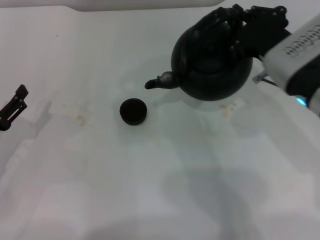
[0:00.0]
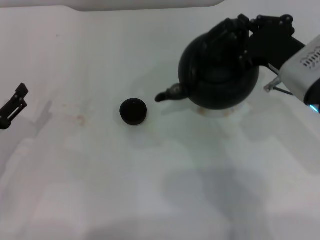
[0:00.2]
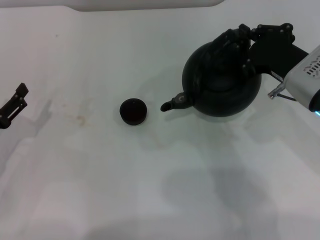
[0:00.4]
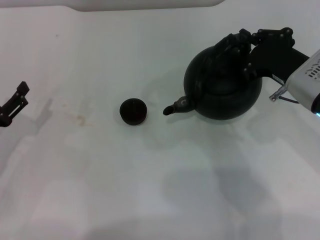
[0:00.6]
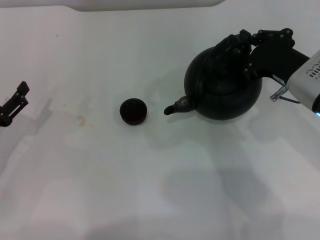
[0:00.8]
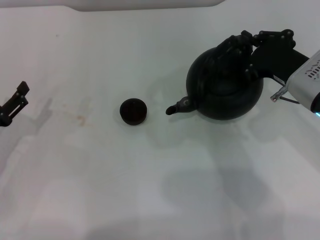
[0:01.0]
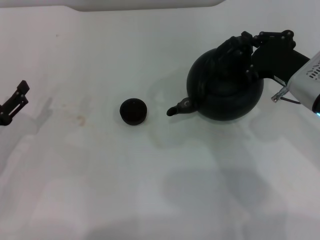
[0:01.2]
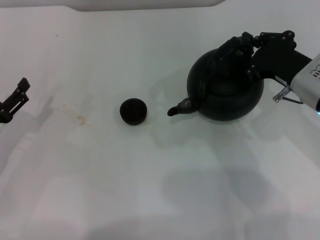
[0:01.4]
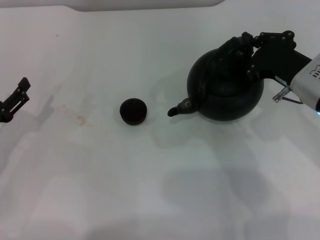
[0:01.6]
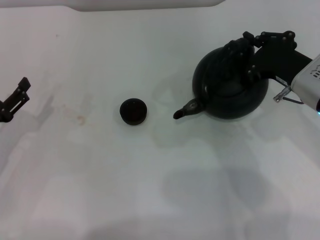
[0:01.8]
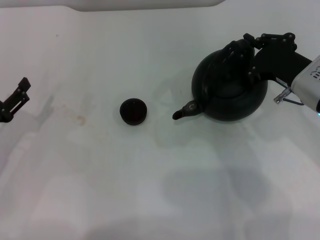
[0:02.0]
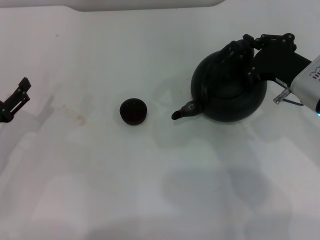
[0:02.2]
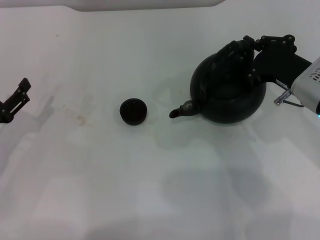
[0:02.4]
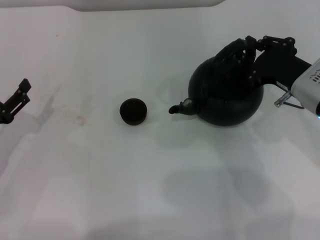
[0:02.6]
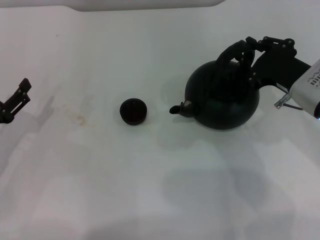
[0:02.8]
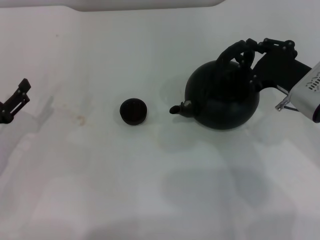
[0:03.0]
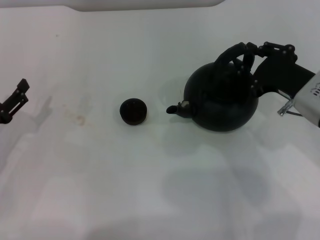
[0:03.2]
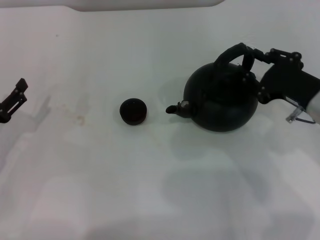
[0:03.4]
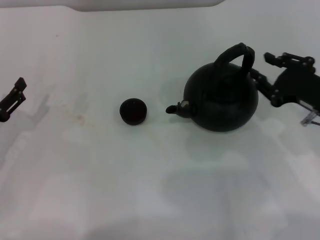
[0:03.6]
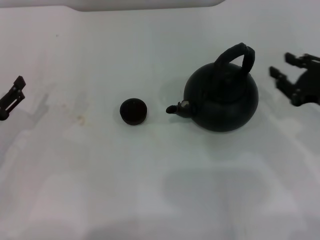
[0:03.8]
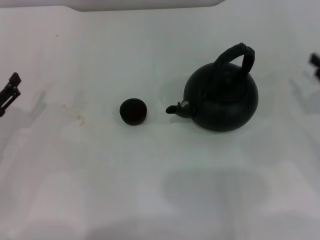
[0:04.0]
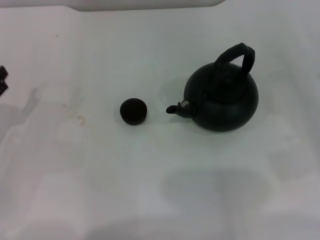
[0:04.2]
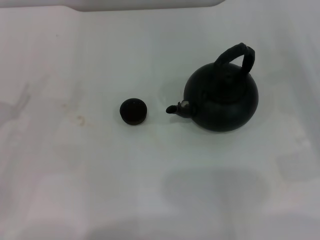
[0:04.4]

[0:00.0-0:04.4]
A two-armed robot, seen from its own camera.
Task of the whole recording: Grasp the handle of the teapot with one hand and pour tea into the teacup.
Step, 0:00.0 to 0:03.6: Put down the teapot with the right gripper.
0:00.0 to 0:01.4: The right gripper ends up roughly 5 cm from where it was.
0:01.4 to 0:03.0: The right gripper opens up.
0:03.0 to 0:04.4: The right gripper goes about 15 cm to the right.

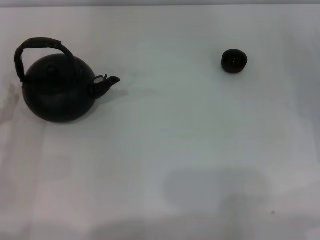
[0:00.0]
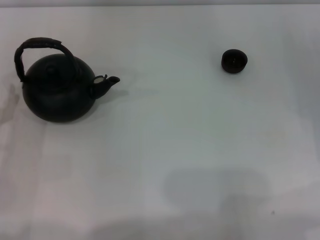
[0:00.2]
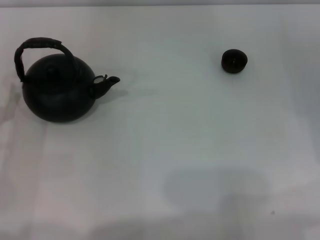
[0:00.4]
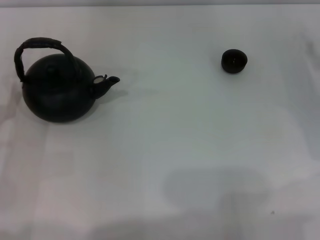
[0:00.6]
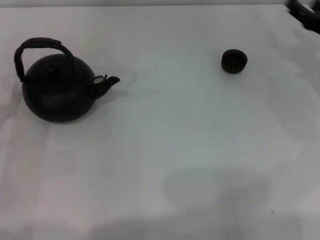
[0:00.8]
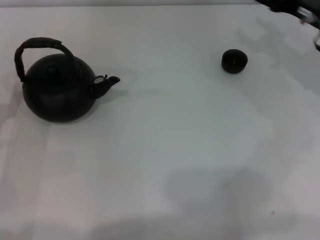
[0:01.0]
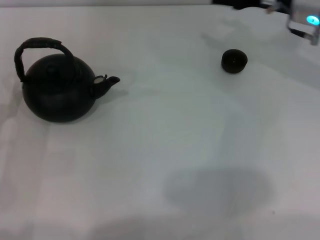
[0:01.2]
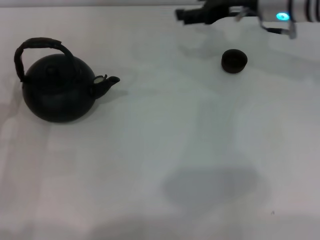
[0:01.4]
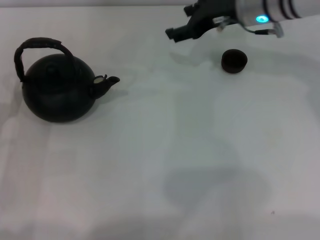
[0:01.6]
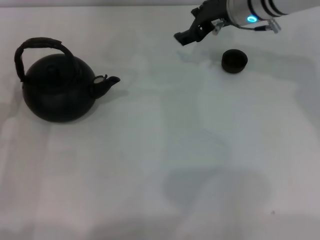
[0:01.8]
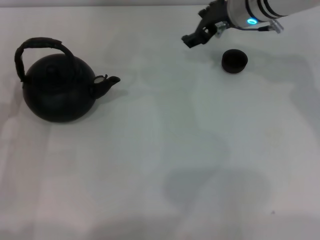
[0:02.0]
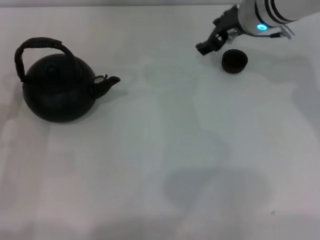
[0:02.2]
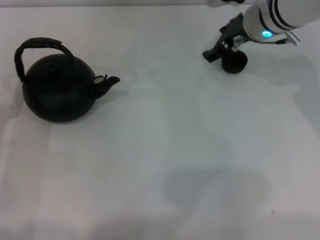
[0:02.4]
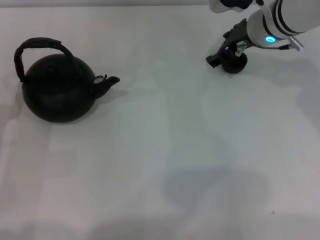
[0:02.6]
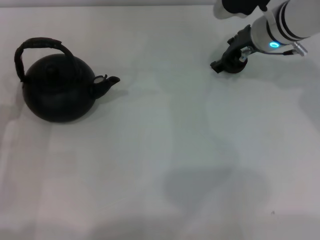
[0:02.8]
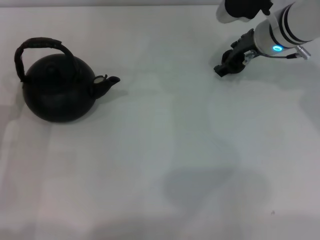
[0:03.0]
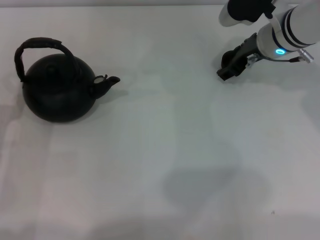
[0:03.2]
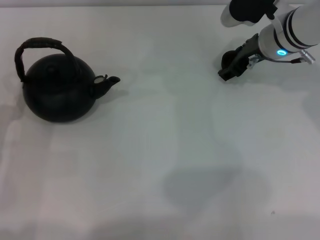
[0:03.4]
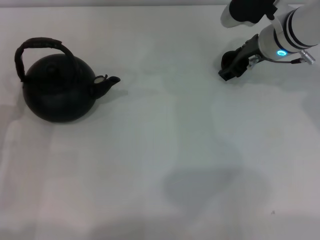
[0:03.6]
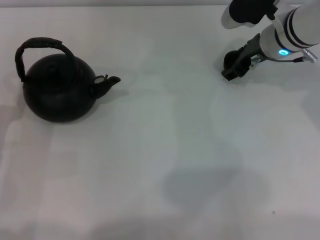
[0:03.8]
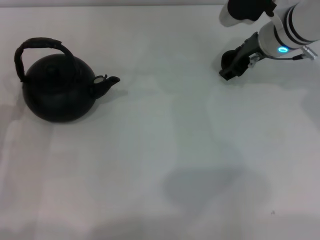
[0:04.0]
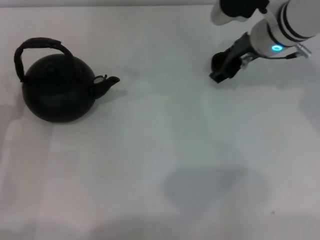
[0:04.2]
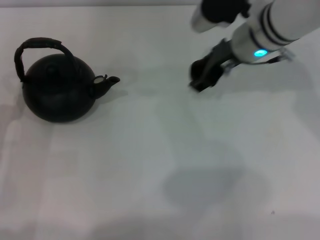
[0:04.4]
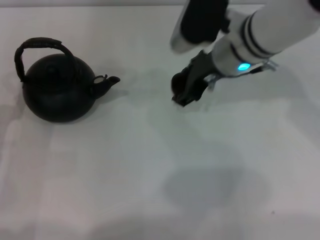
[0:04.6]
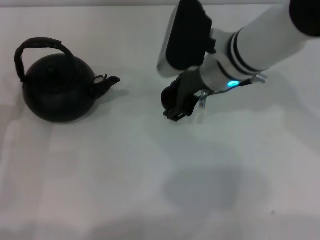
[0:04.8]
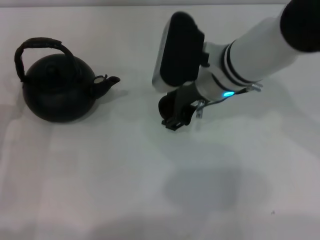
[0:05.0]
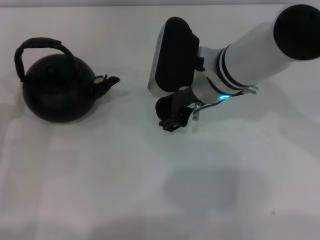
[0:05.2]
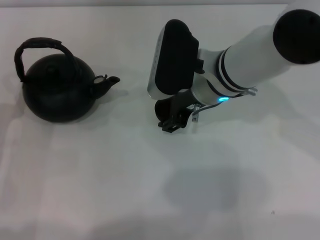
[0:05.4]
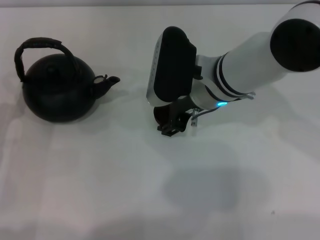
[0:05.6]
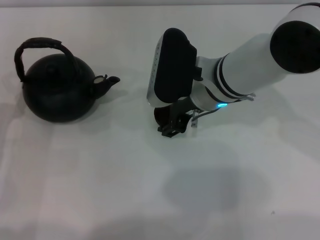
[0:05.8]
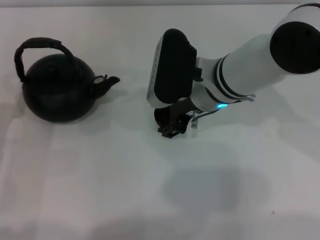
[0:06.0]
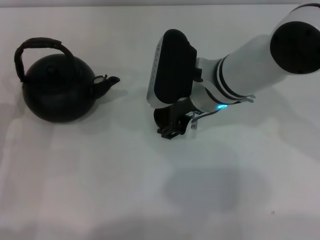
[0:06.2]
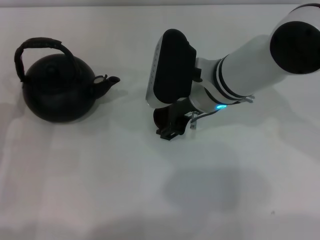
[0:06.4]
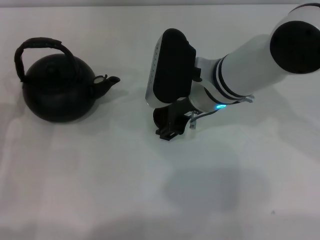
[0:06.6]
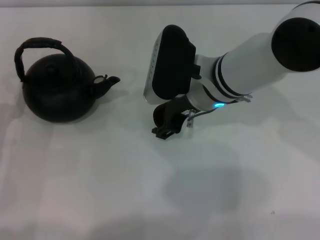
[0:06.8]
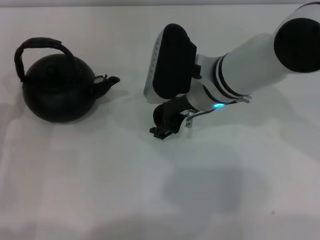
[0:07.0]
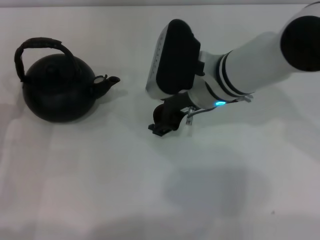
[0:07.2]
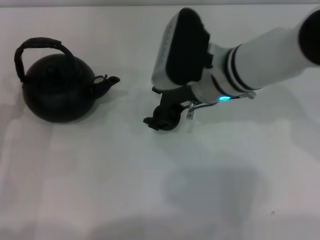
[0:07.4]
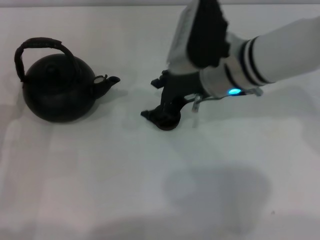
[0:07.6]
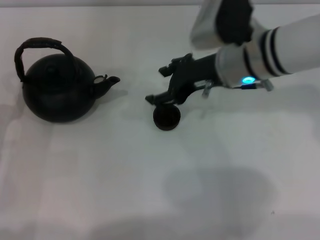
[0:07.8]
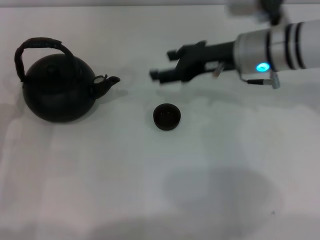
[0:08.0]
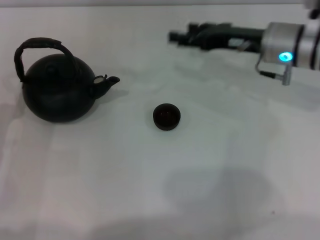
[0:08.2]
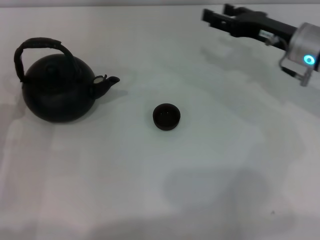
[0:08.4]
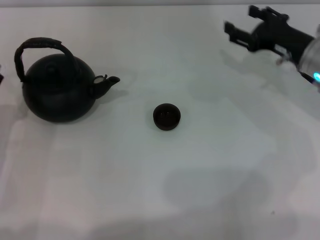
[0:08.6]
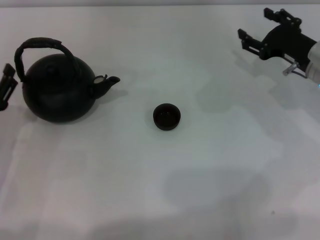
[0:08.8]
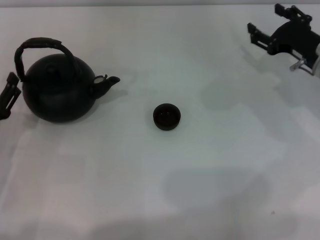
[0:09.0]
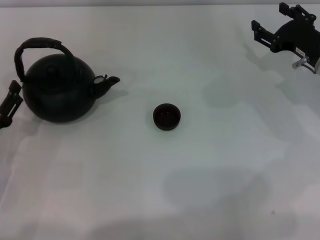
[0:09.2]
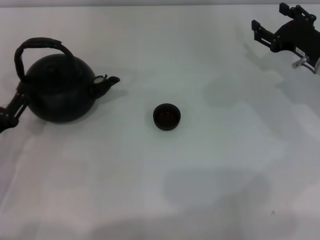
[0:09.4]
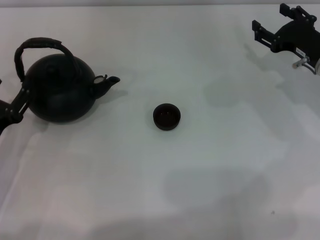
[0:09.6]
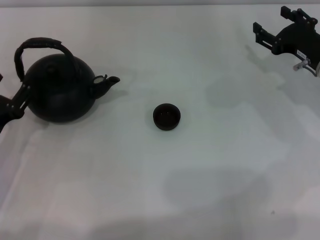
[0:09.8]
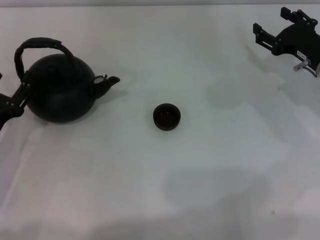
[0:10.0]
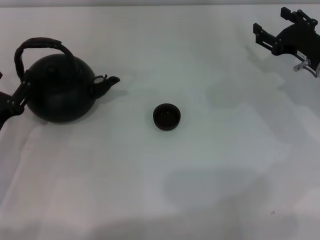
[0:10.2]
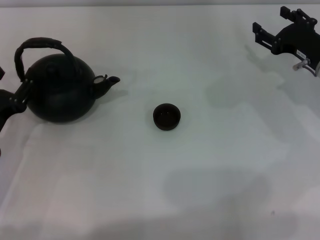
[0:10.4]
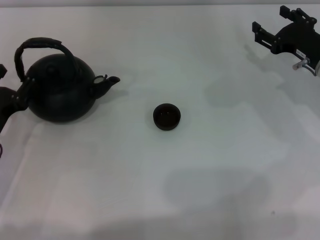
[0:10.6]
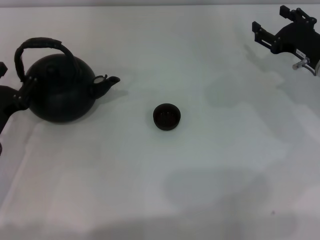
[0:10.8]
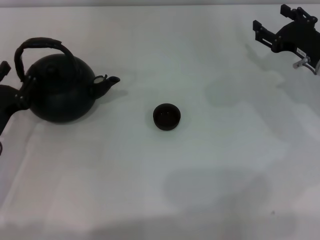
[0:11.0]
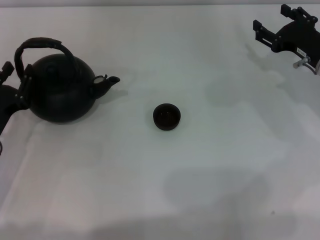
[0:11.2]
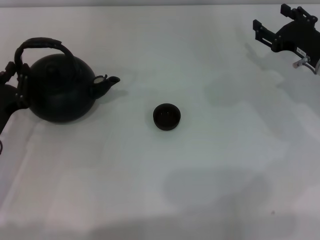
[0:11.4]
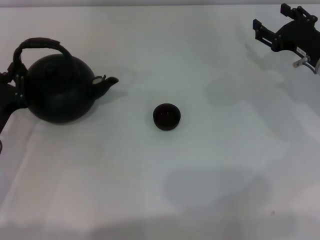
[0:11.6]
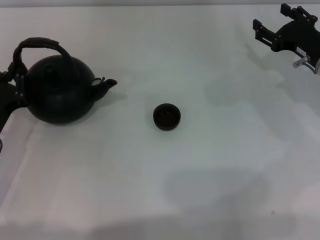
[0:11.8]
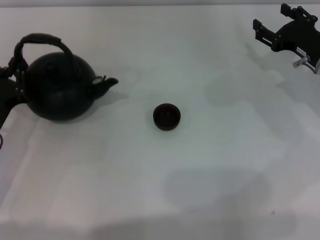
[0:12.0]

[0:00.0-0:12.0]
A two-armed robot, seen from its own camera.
Task of the whole recording: Grasp the handle of the teapot with one hand and pour tea into the teacup.
Step, 0:00.0 to 0:04.2: Pick up the teacup with the right gripper.
Step, 0:04.4 to 0:07.8: Place the teacup in the center of view with the right gripper.
0:00.0 to 0:01.6: The right gripper goes some 25 cm to the left, forward and upward.
0:03.0 to 0:04.4: The right gripper shifts by roughly 5 cm.
0:04.4 to 0:06.0: The right gripper travels backward and to the left by some 10 cm.
0:06.0 to 0:07.6: The grippers make only small movements.
0:07.6 to 0:09.0: The right gripper travels to the right and downward by roughly 20 cm.
0:09.0 to 0:10.4: The grippers make only small movements.
0:10.4 to 0:12.0: The left gripper closes its fingers.

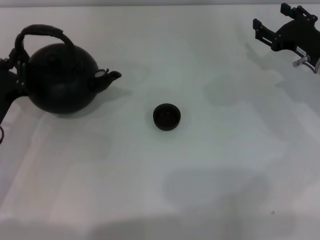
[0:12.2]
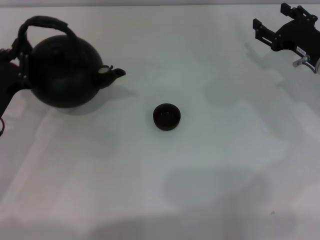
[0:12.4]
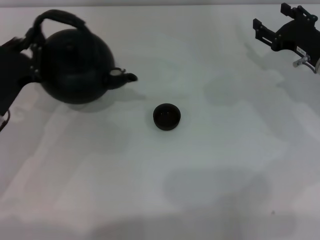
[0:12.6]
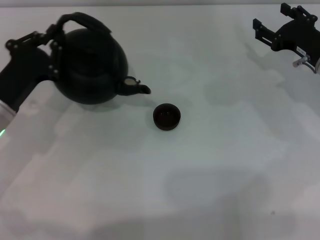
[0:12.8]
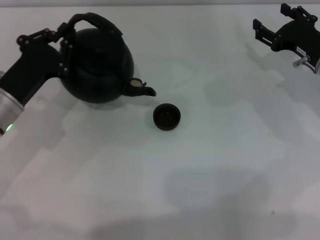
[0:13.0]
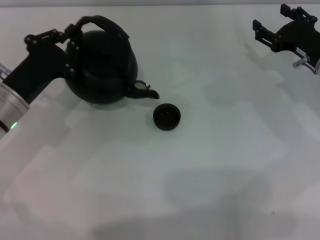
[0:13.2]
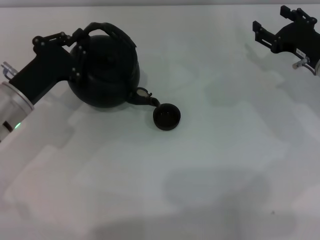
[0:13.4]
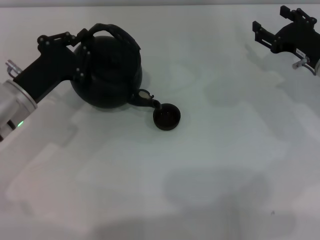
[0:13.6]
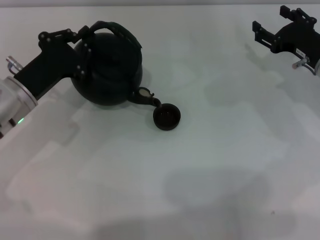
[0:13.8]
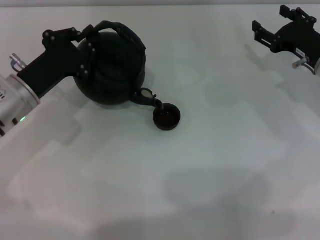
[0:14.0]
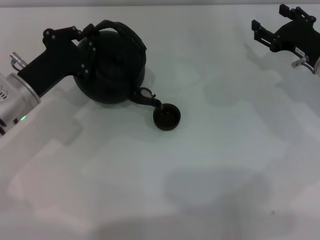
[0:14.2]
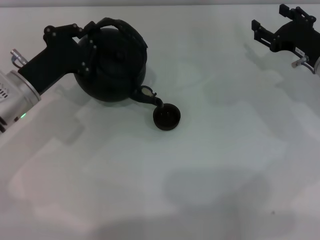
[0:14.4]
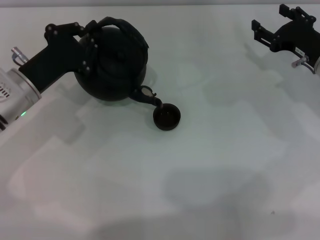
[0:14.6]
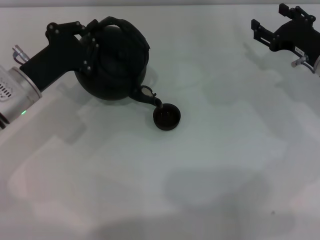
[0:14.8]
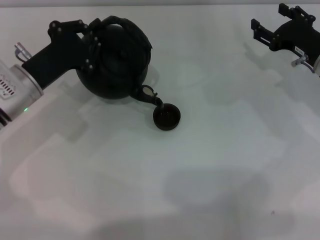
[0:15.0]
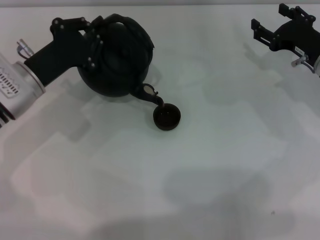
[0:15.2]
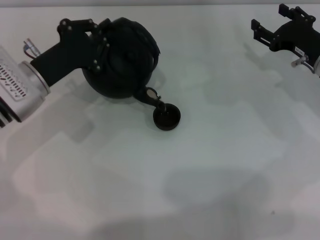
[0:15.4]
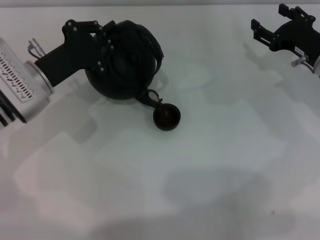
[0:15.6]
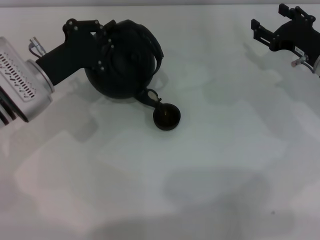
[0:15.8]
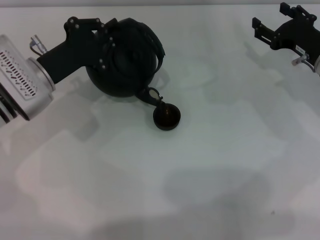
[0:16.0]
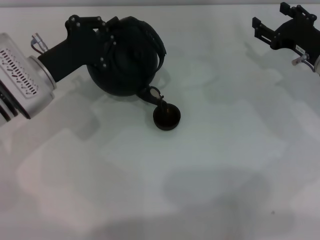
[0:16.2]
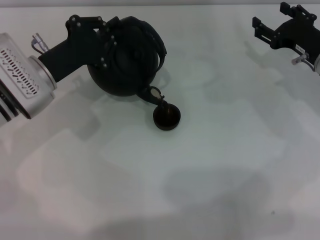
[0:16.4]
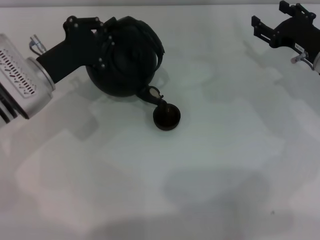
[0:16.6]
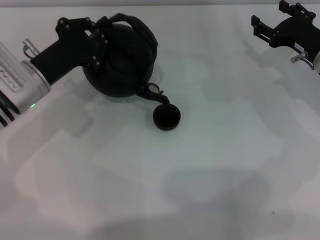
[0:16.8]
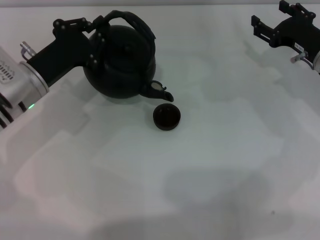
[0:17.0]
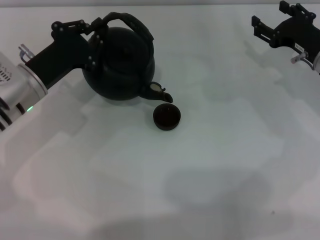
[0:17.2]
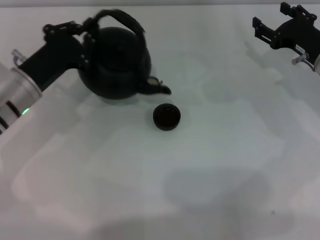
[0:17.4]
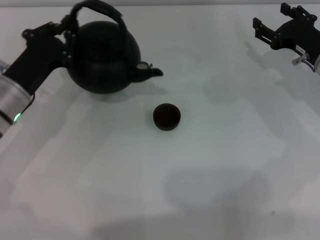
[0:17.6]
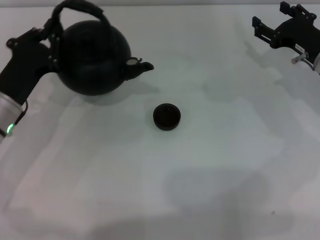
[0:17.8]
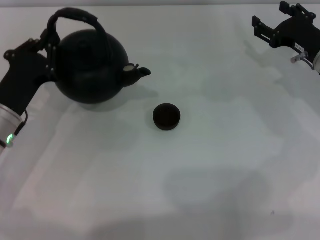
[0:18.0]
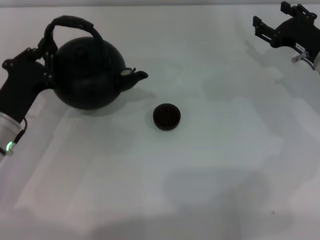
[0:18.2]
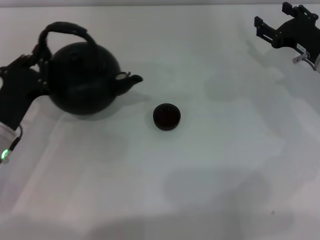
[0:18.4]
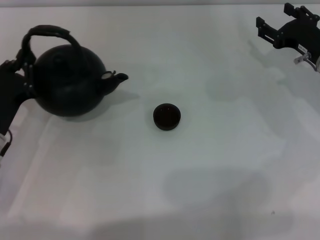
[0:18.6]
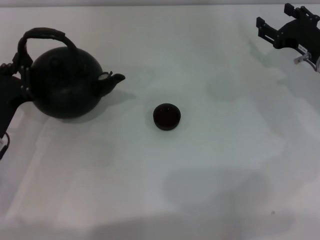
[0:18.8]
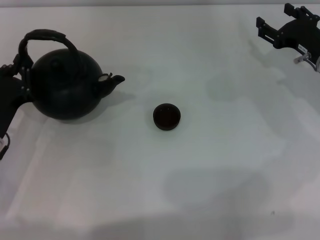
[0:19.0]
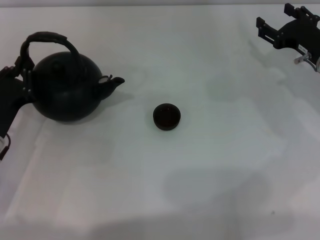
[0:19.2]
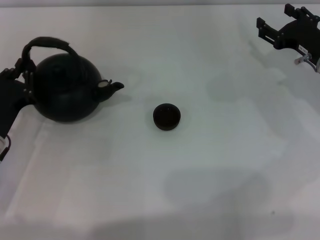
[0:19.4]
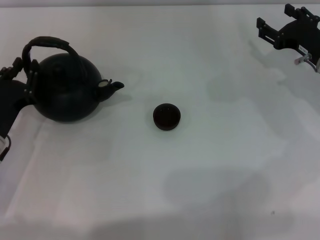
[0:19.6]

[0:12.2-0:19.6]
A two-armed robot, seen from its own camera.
Task of the whole recording: Grasp the handle of the teapot with one hand and pour tea into the teacup.
Step, 0:13.0 to 0:17.4: Pour tea into the teacup with the left gripper.
0:12.2 to 0:13.6: The left gripper moves forward, some 5 cm.
0:13.6 to 0:16.6: The grippers make only small movements.
0:16.6 to 0:18.2: The left gripper heads backward, covering approximately 5 cm.
0:18.2 to 0:19.6: The grippers stay close to where they were, moving slightly.
